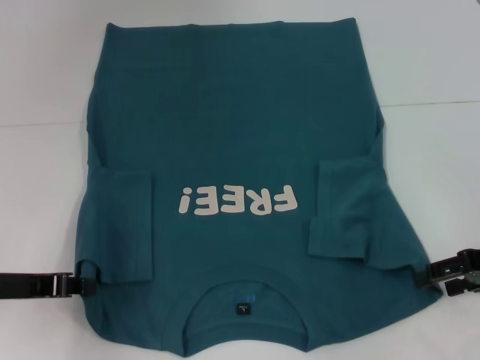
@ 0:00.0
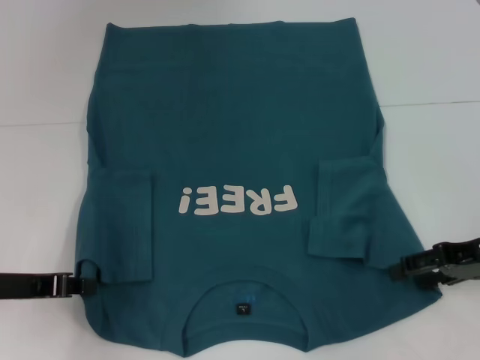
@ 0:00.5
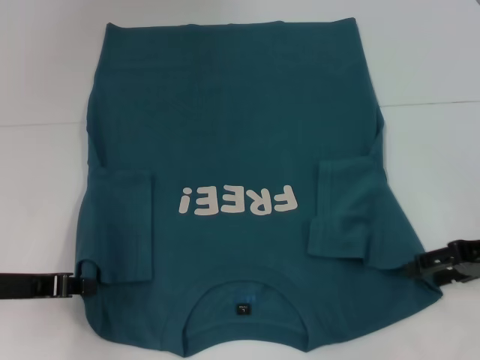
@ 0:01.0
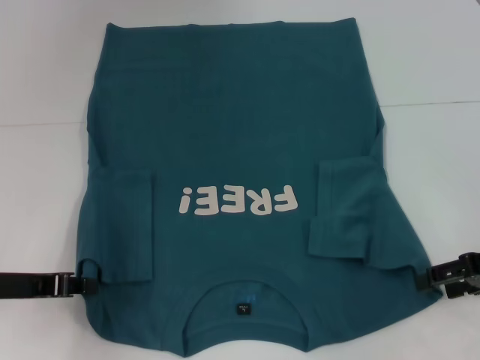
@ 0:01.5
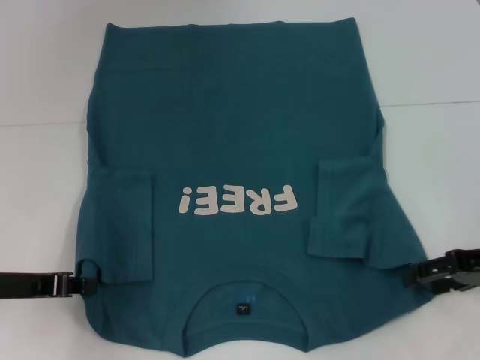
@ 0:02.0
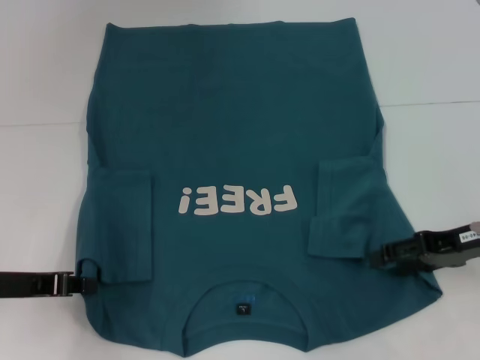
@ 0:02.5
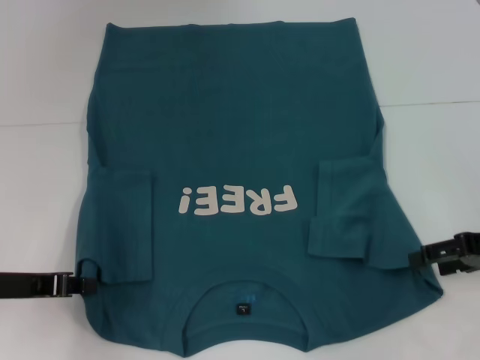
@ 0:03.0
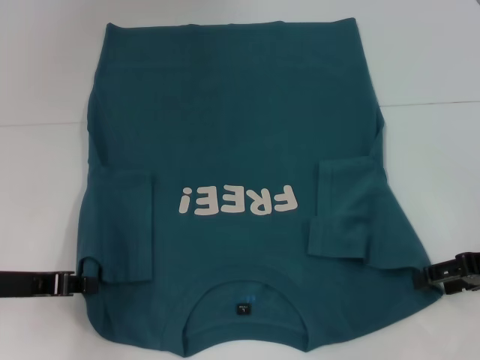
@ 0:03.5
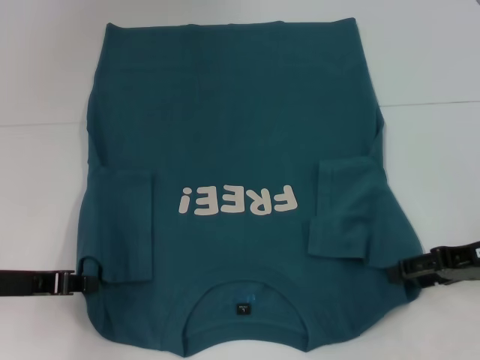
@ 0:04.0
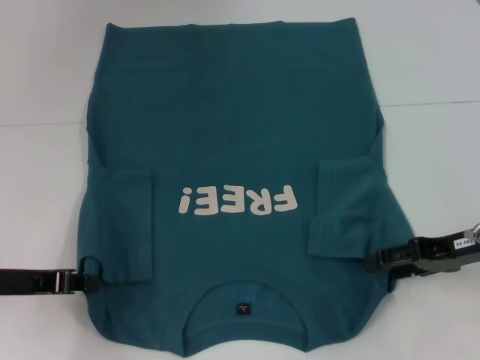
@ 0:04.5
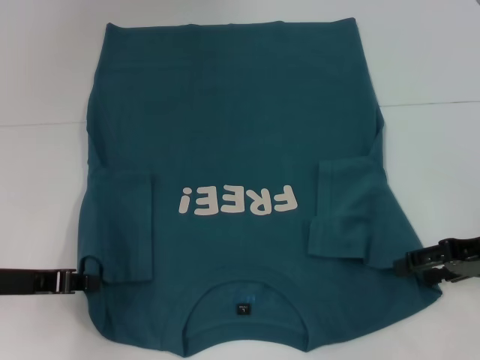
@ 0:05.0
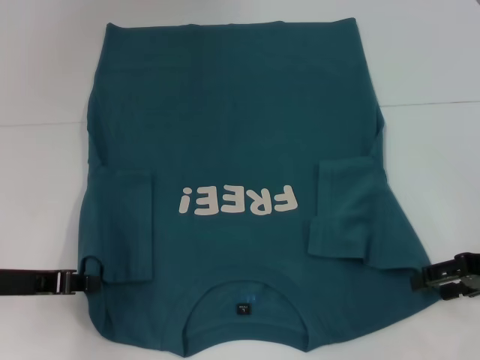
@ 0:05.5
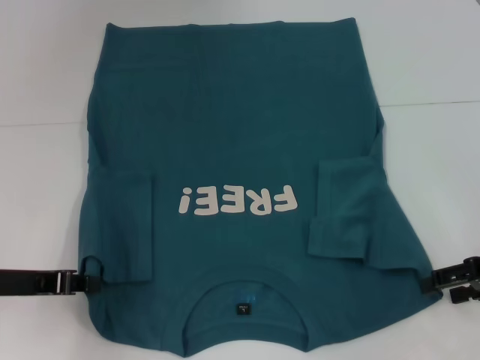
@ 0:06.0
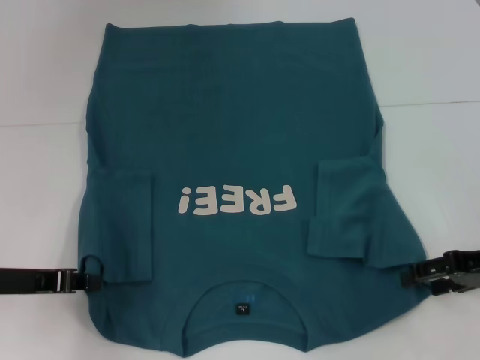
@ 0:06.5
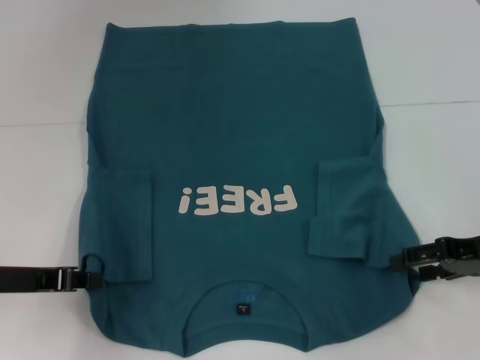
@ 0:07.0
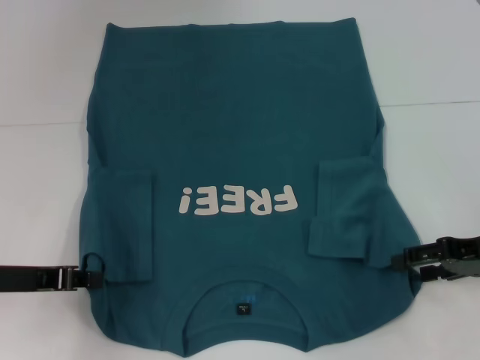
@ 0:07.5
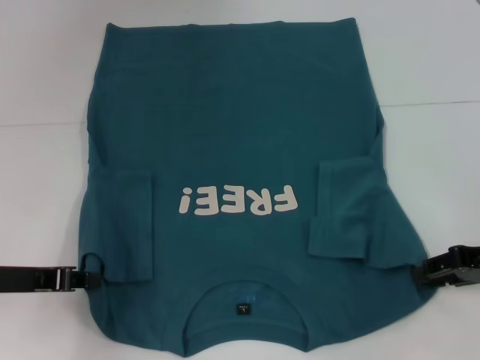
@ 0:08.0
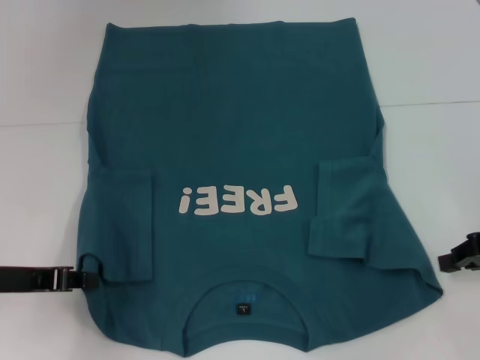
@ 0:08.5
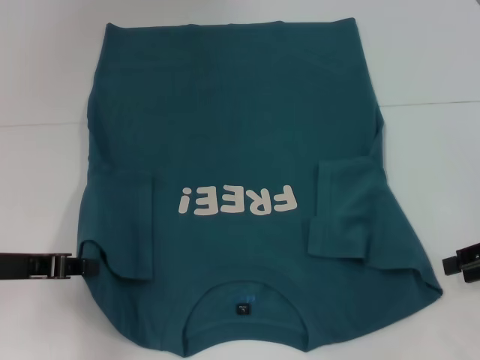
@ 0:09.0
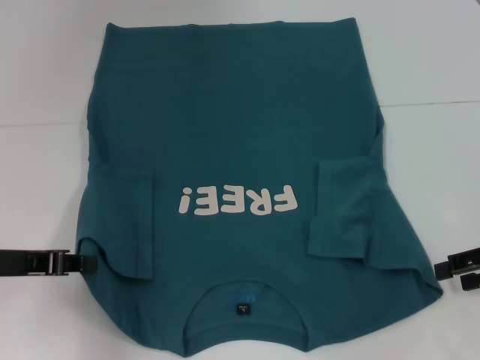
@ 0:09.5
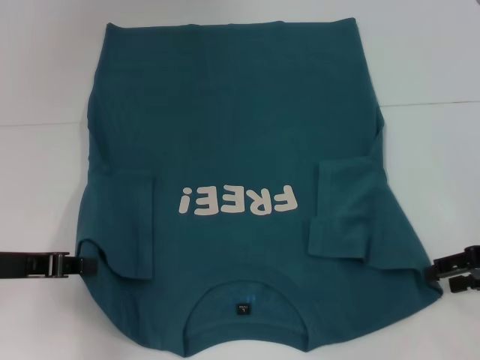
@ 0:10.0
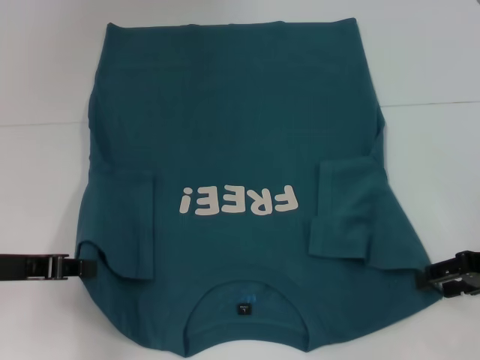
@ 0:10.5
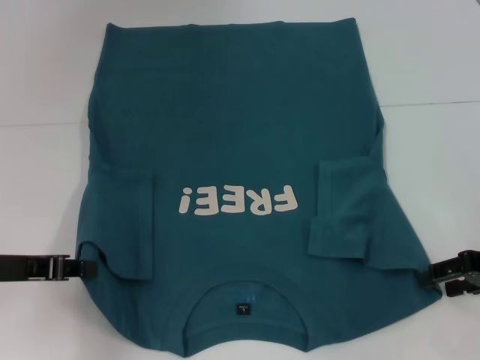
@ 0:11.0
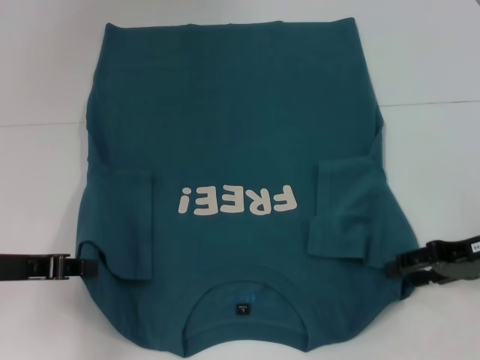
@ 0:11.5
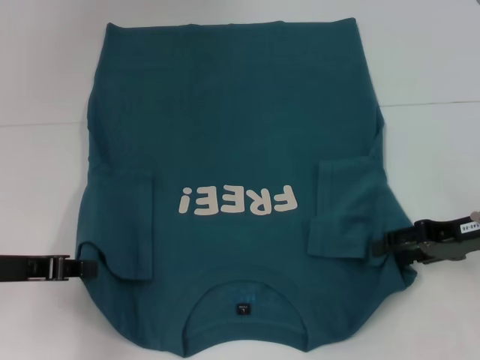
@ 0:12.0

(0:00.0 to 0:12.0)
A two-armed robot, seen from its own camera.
0:02.0 - 0:06.0: The grippers move only a little.
0:06.0 - 0:08.0: The right gripper closes up.
0:08.0 - 0:12.0: The grippers move only a little.

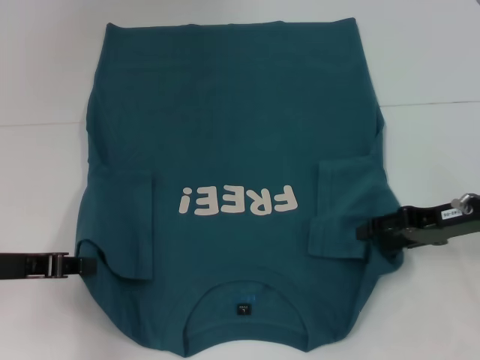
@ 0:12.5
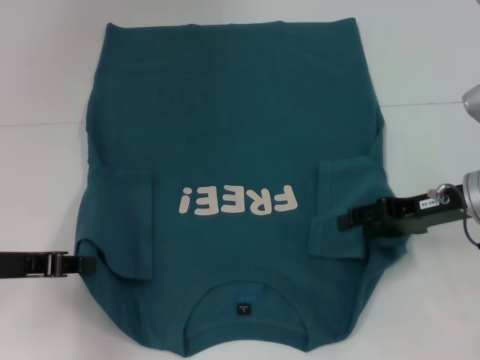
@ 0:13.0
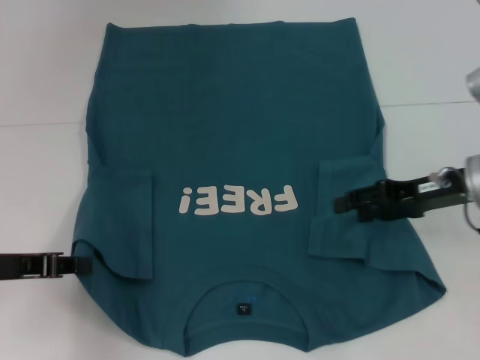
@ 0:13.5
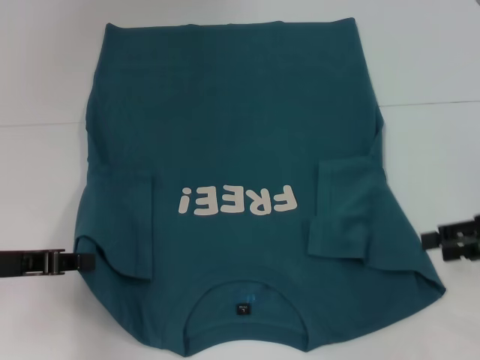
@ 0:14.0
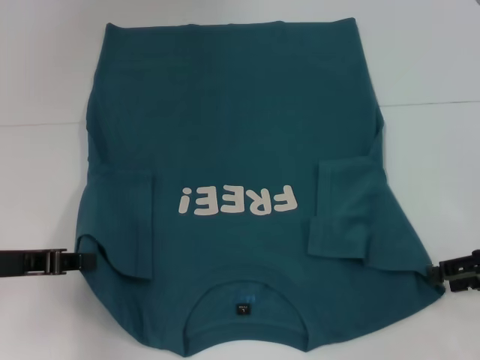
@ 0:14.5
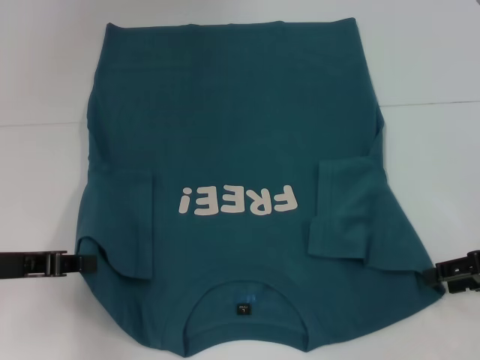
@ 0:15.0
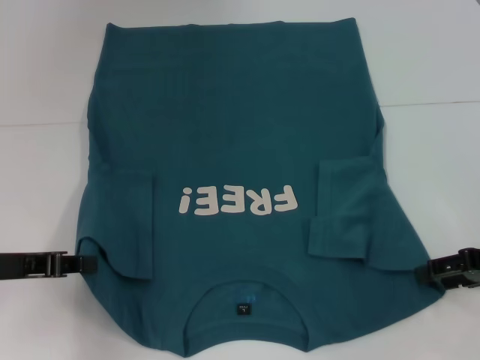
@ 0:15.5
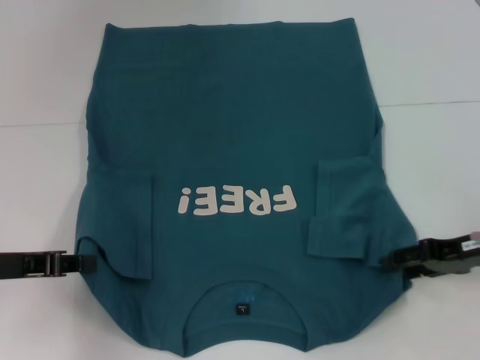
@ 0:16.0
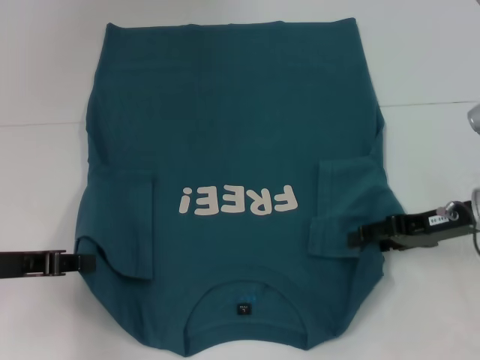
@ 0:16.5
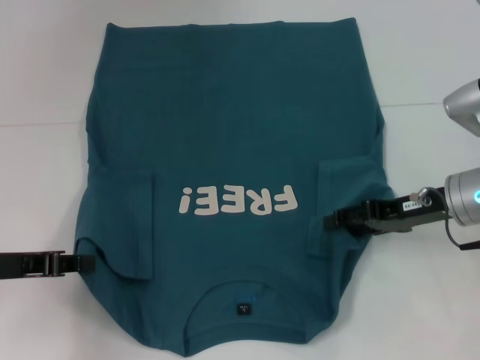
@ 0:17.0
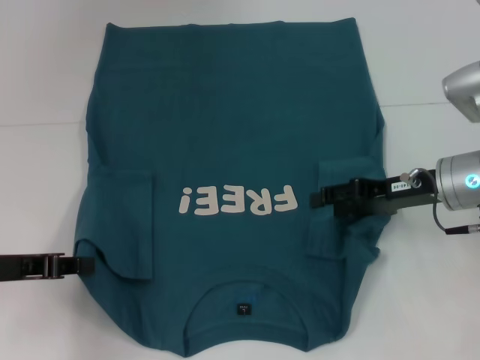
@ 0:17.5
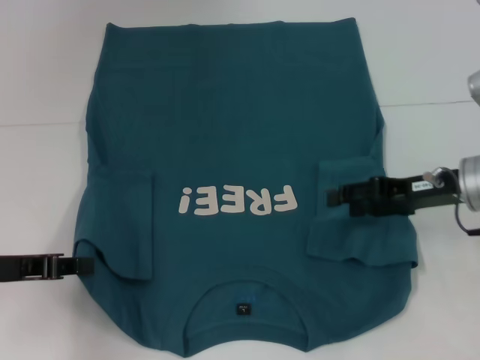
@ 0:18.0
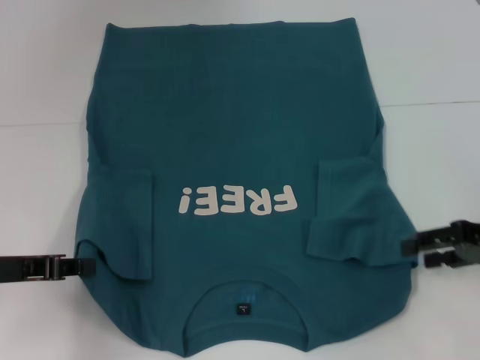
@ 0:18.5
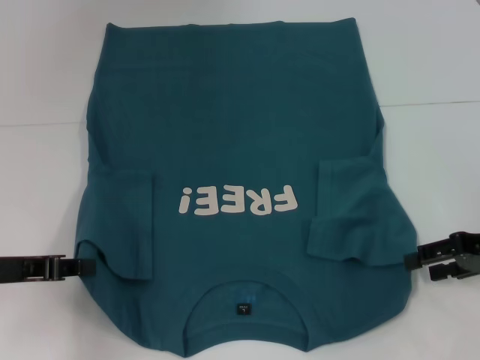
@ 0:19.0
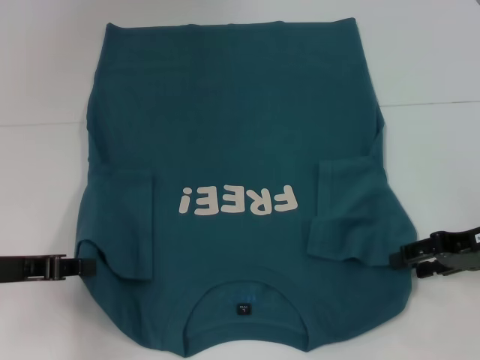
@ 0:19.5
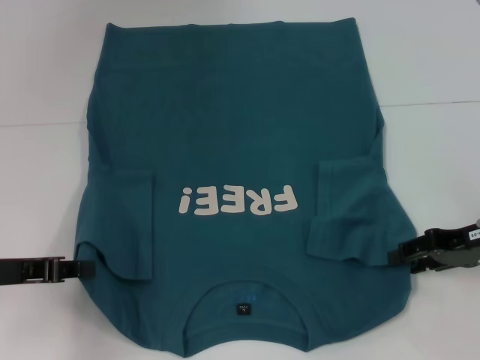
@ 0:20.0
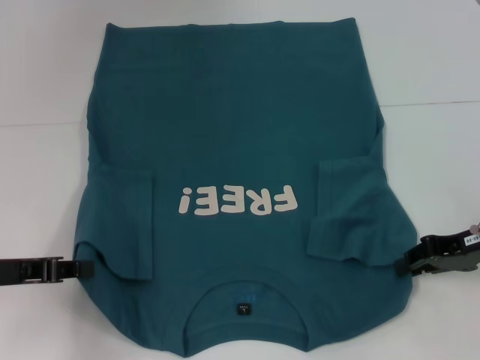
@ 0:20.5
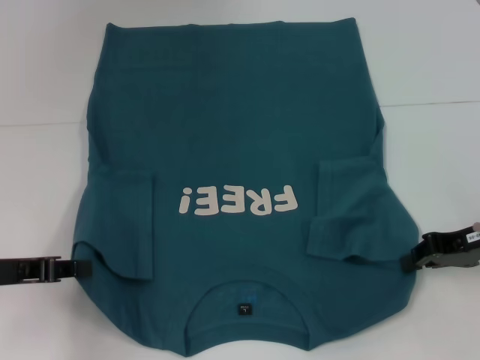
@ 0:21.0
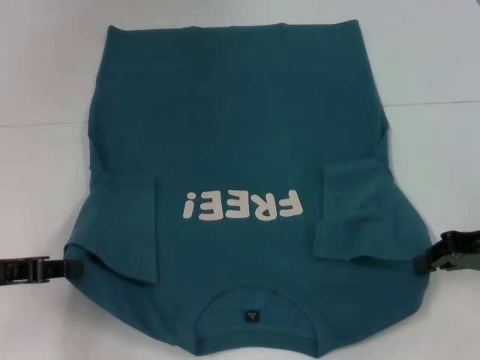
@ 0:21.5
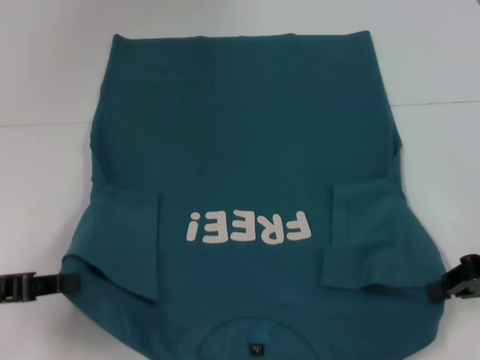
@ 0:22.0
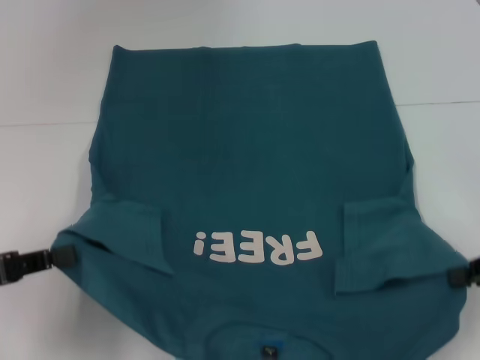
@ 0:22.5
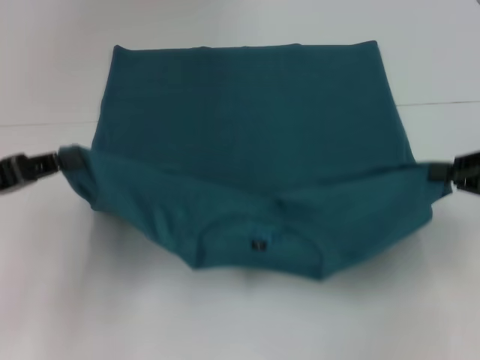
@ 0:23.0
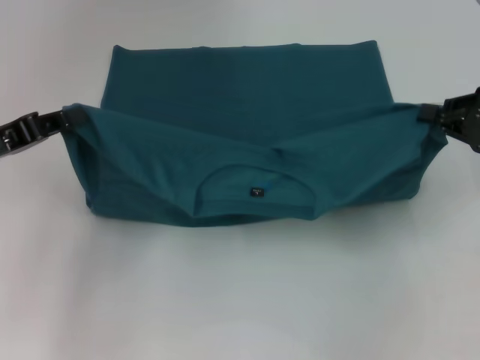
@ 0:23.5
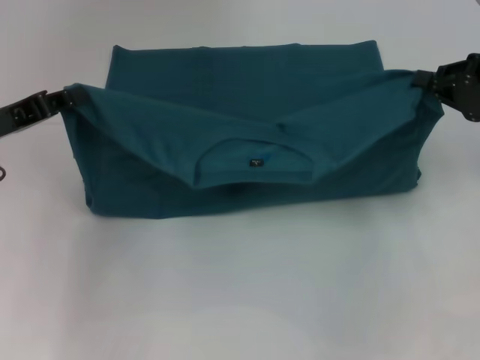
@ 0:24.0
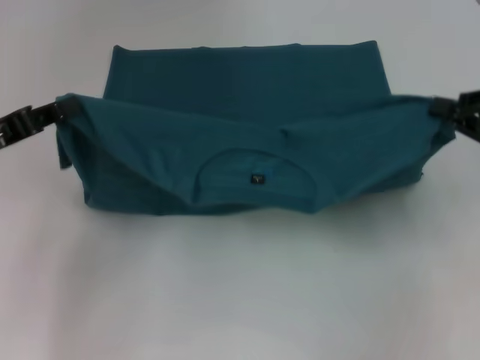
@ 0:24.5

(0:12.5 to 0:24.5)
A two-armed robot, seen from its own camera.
Step, 0:12.5 - 0:20.5: Grab the bottom right corner with your right hand.
0:12.5 - 0:14.5: The right gripper goes some 5 cm to the right.
0:14.5 - 0:16.5: The right gripper moves to the left and forward, some 10 cm.
0:16.5 - 0:18.5: The right gripper heads to the right, covering approximately 5 cm.
0:18.5 - 0:20.5: The grippers make only small movements.
0:20.5 - 0:22.5: The left gripper changes place by approximately 5 cm, while the right gripper is displaced backward and to the right by roughly 10 cm, and closes up.
0:22.5 - 0:24.5: The left gripper moves forward, some 10 cm; the right gripper goes approximately 5 cm forward.

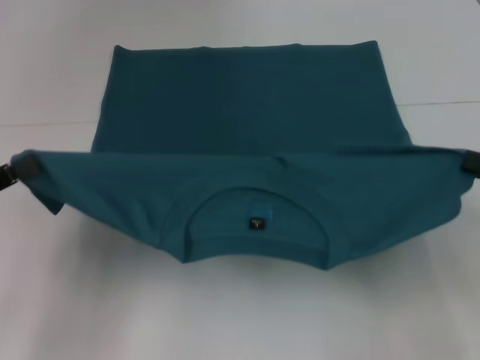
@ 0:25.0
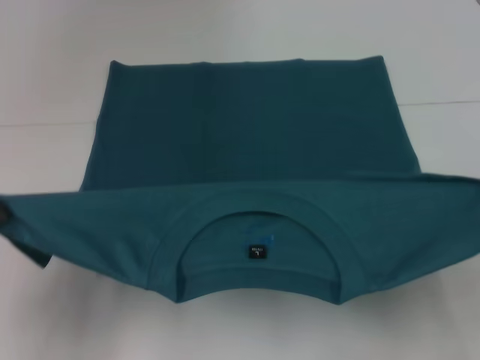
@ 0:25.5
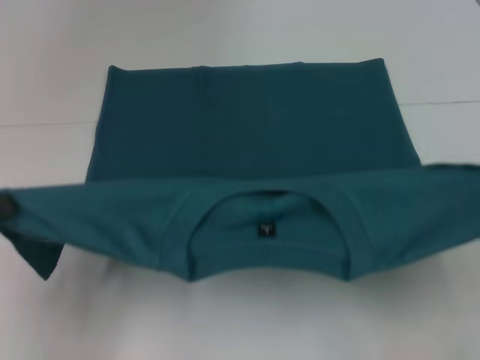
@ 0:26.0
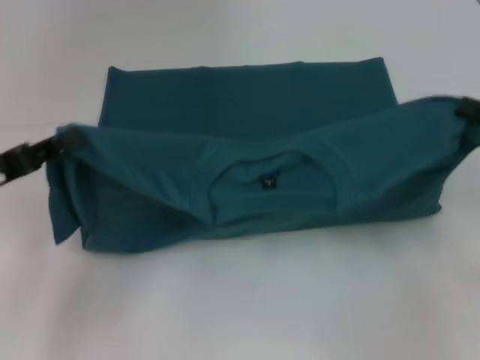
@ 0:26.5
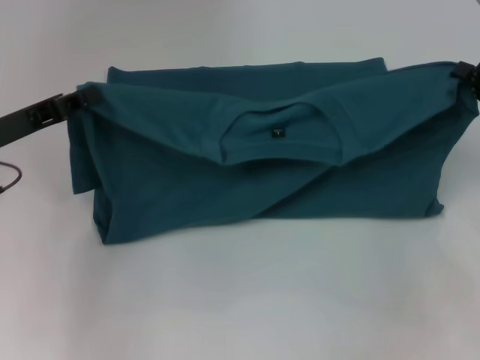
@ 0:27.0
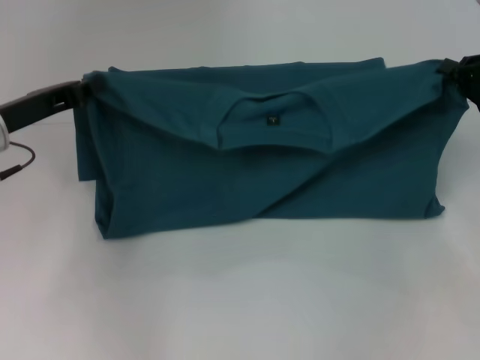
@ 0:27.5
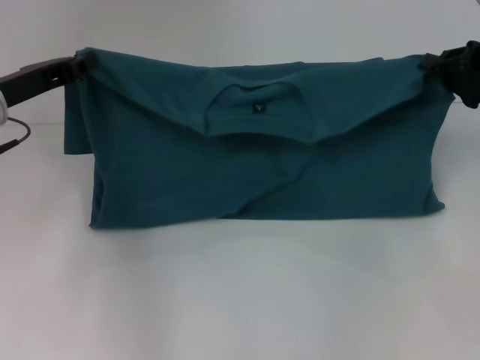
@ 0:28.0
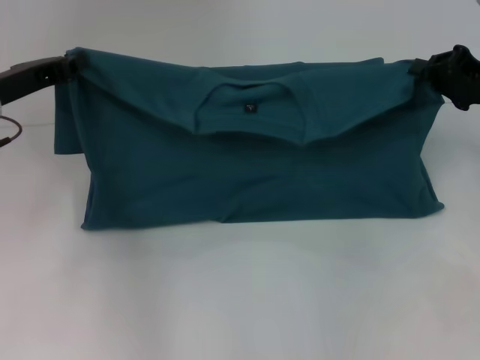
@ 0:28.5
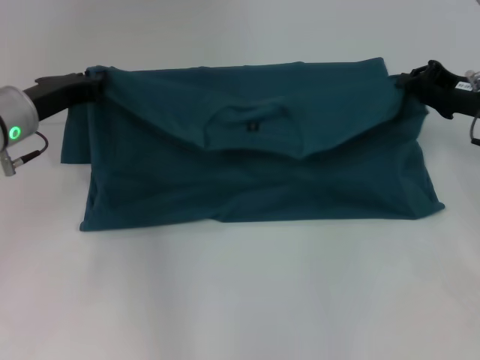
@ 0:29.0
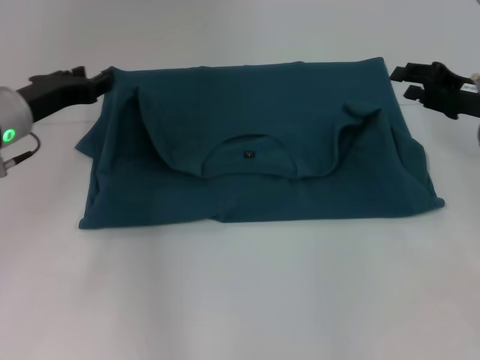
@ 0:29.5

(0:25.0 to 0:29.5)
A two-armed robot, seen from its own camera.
Step, 0:25.0 - 0:29.0: Fold the clothes to the left.
Step, 0:25.0 - 0:29.0: Fold the clothes to the right.
0:25.0 - 0:27.0: The grippers both shift forward by some 10 cm.
0:27.0 - 0:29.5: Both grippers move forward, roughly 5 cm. The right gripper opens its fingers.
